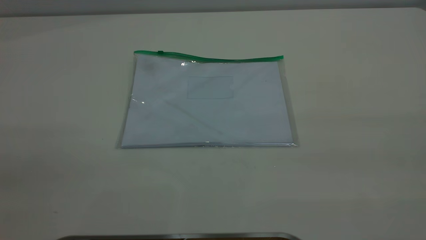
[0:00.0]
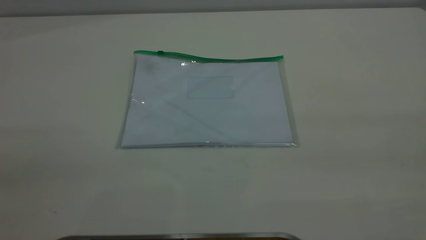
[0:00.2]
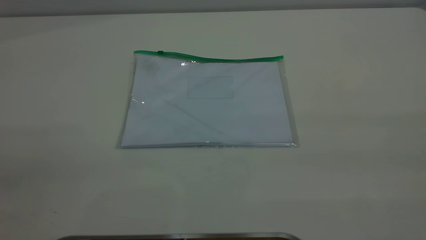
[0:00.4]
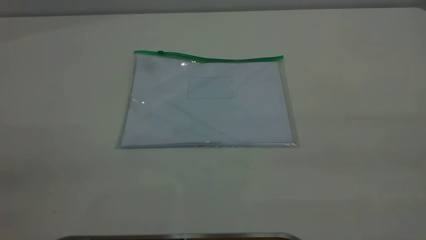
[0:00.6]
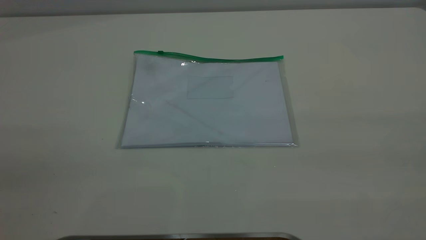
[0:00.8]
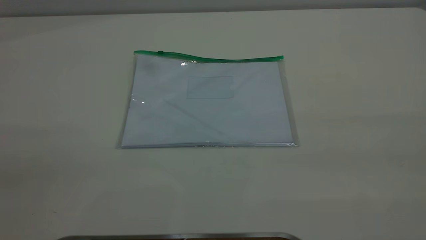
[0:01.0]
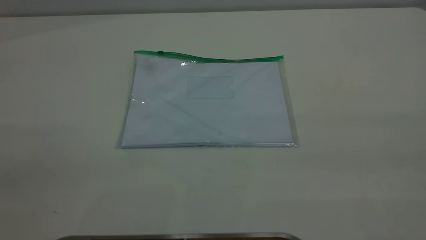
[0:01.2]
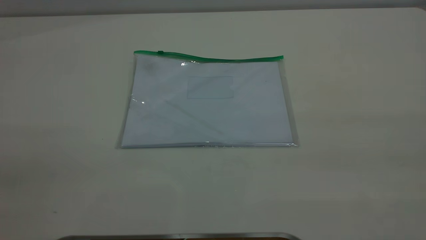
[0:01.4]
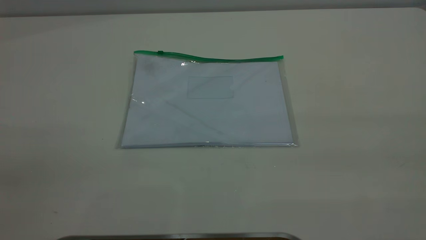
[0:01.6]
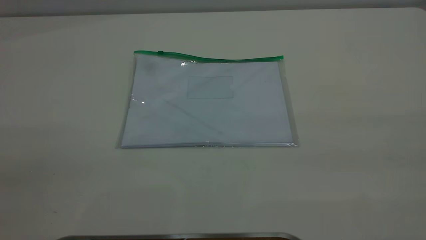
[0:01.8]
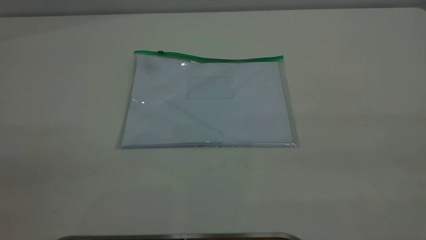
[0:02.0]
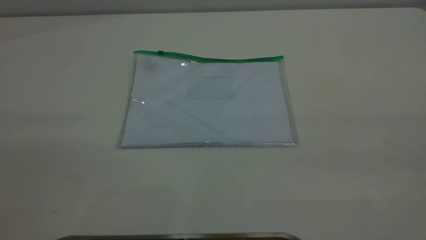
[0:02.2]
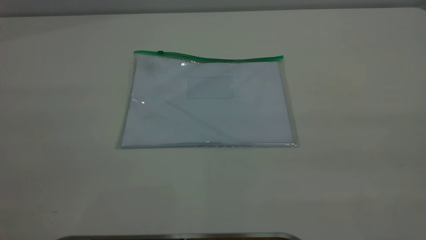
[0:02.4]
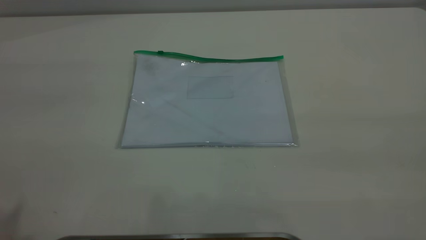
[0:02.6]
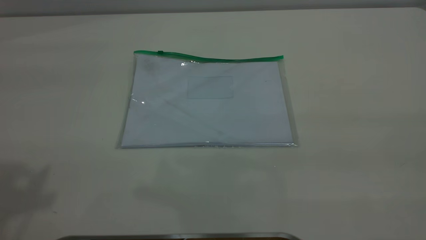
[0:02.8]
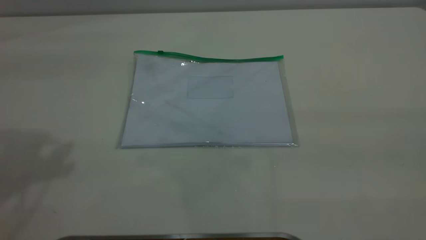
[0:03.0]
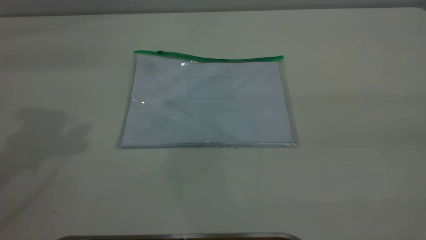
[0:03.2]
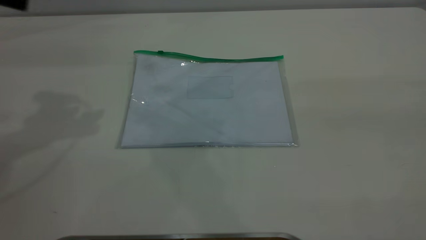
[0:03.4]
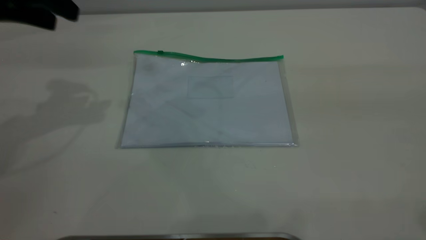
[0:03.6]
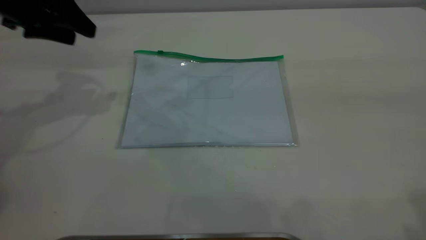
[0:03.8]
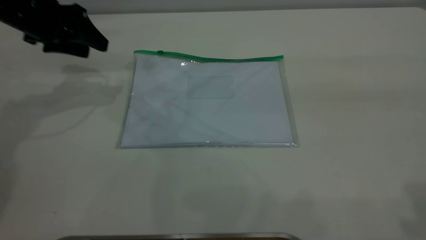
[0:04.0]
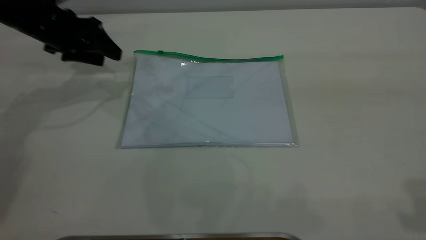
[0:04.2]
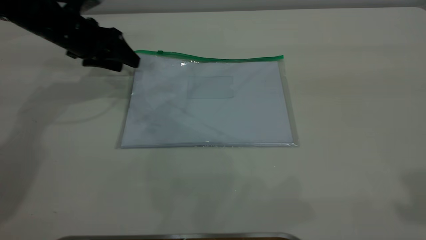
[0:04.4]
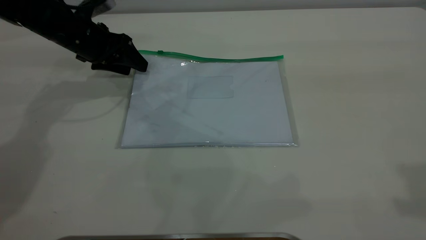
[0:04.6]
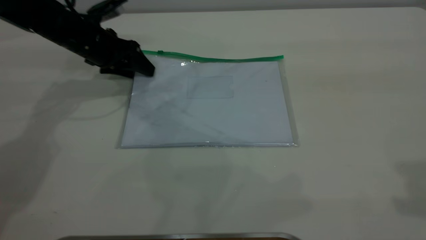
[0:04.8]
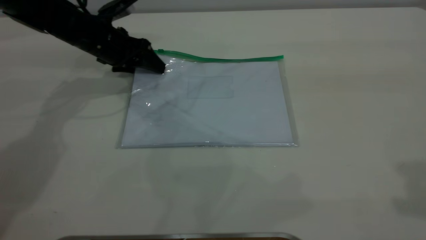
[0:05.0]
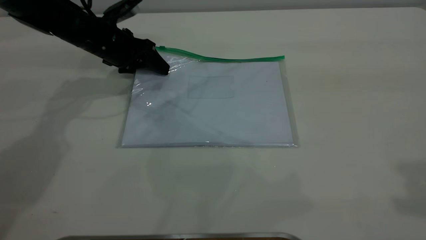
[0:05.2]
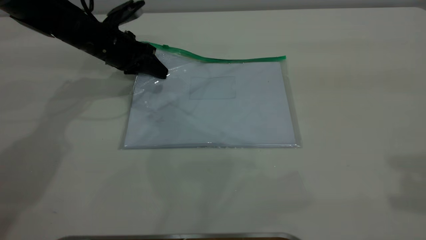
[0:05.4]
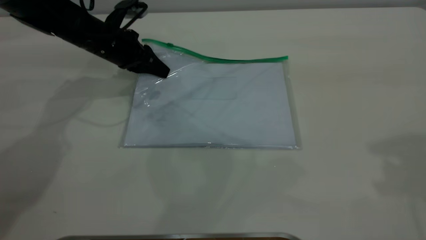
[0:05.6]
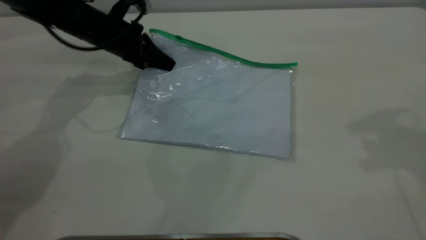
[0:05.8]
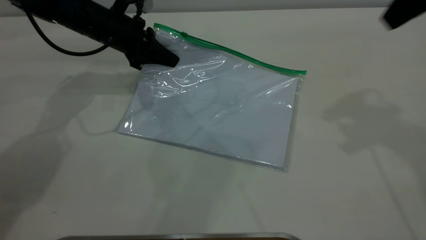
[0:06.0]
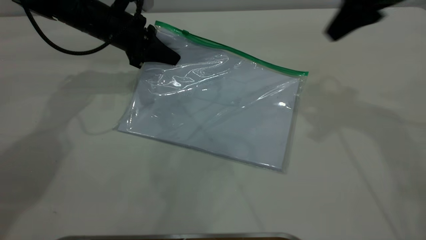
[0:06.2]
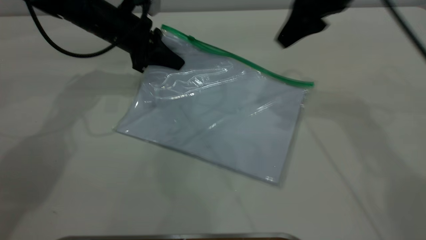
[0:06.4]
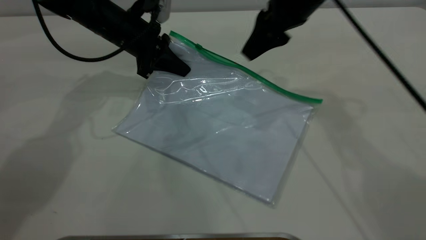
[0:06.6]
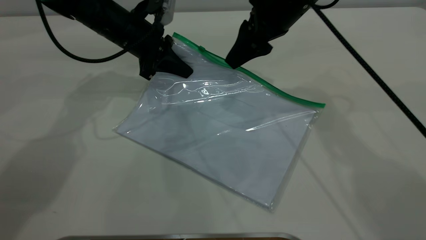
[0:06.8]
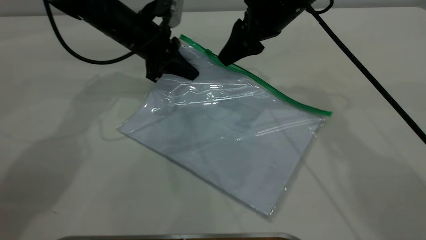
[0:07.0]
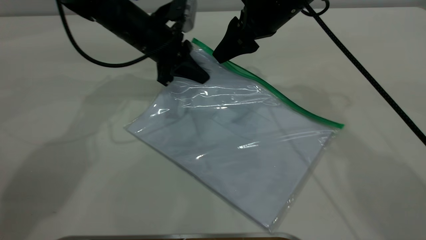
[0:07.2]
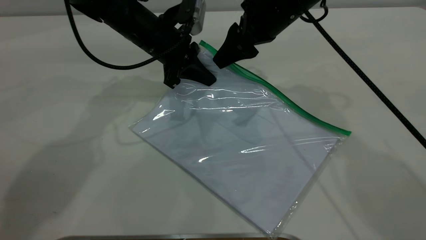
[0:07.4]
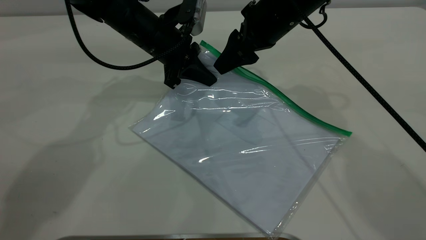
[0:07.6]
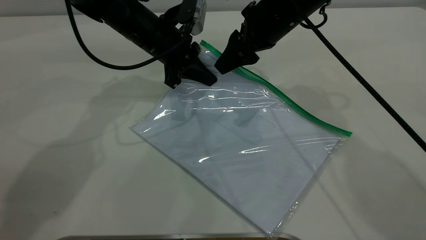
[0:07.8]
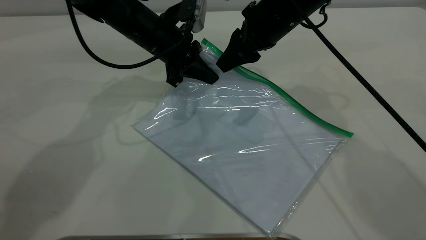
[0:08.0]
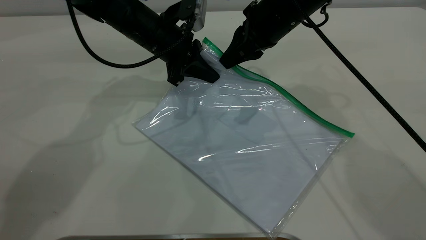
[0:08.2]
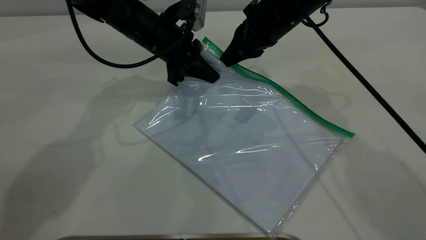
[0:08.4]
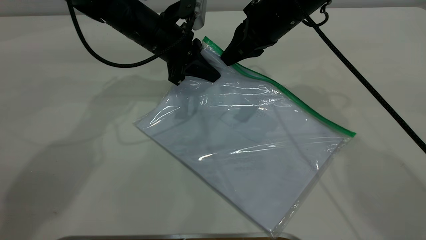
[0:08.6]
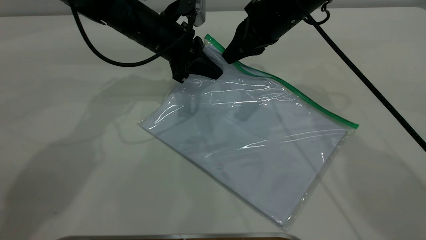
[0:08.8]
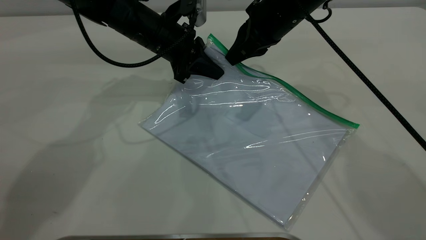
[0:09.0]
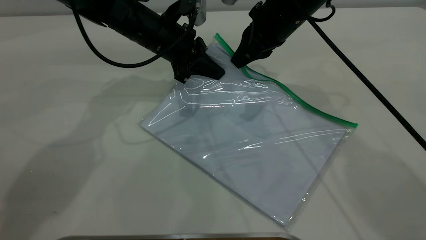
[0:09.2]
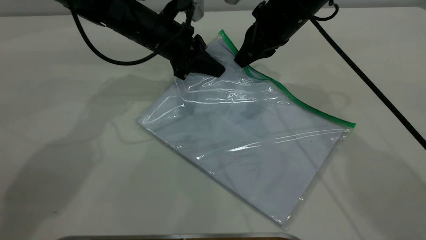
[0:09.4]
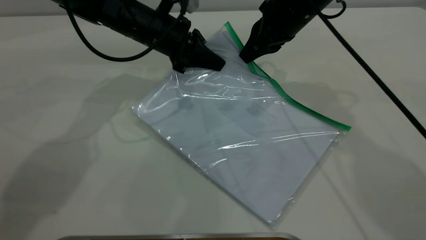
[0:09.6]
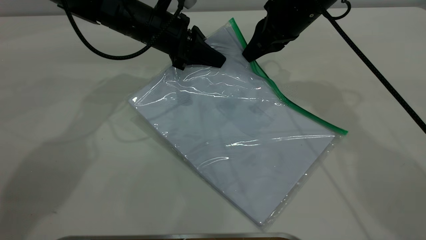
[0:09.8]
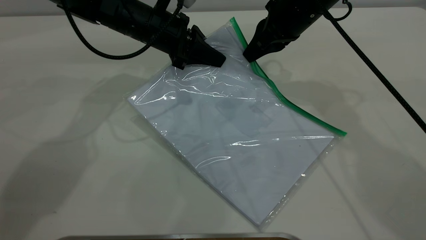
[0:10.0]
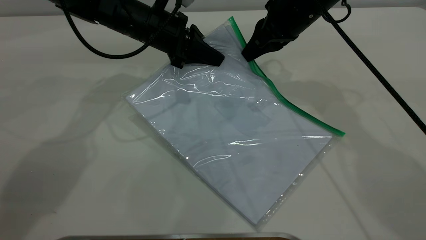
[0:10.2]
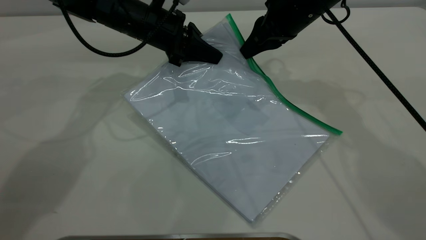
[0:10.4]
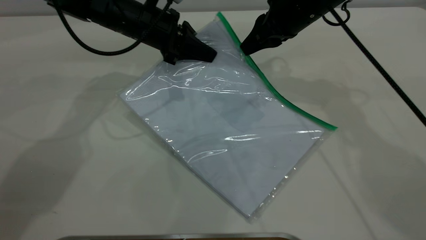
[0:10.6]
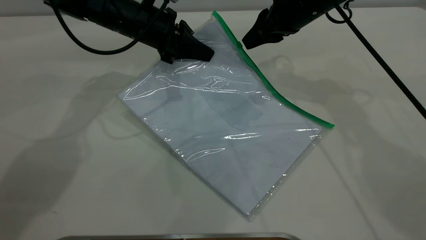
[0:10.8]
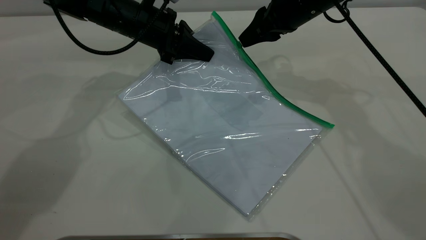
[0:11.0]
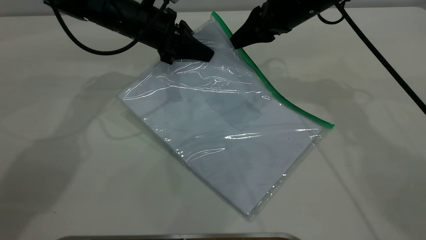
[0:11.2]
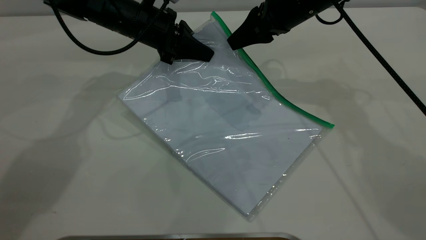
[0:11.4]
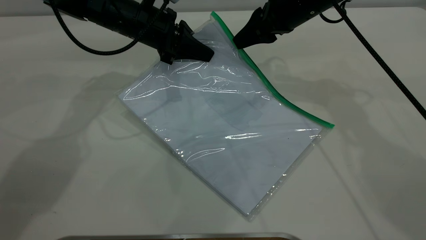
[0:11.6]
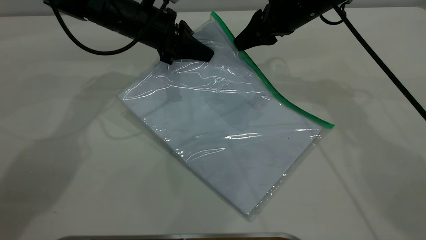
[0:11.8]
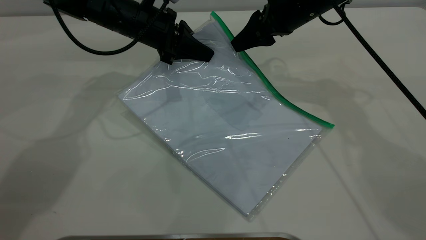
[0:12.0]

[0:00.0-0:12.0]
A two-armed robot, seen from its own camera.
Step, 0:00.0 to 0:05.8: Pick up the transparent plastic bag with the left gripper.
0:00.0 to 0:01.6: Both grippers stay about where they are.
0:03.0 to 0:04.4: The left gripper travels downward and forward by about 35 cm.
0:04.4 to 0:06.0: The left gripper goes approximately 5 cm to the right, and closes, while the right gripper heads forward and downward, covering roughly 20 cm.
0:06.0 to 0:07.6: The right gripper heads to the left, downward and forward, covering roughly 20 cm; the left gripper travels to the right by approximately 10 cm.
0:07.6 to 0:09.0: The right gripper closes its fingers.
0:09.0 to 0:10.4: The grippers make only small movements.
0:10.4 to 0:12.0: The right gripper opens its fingers.

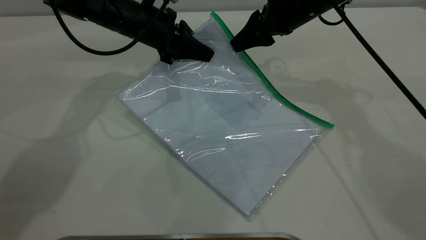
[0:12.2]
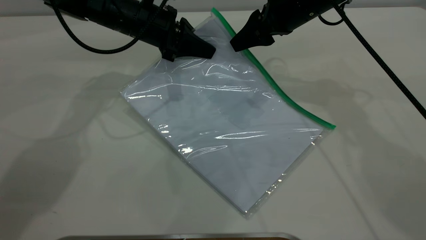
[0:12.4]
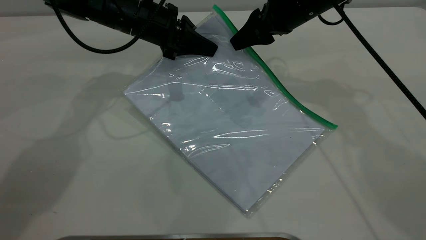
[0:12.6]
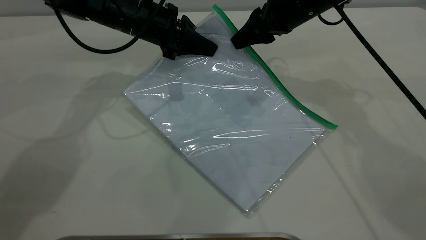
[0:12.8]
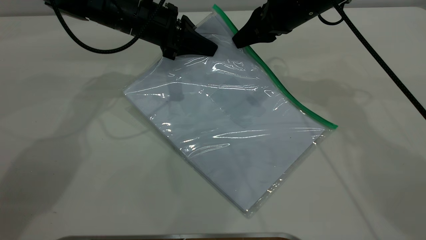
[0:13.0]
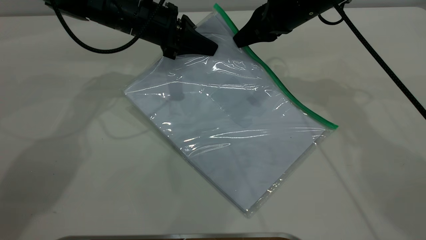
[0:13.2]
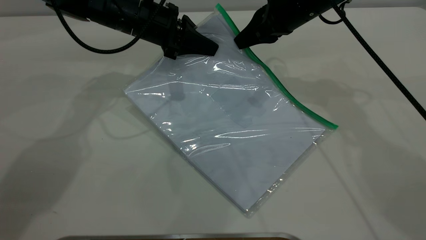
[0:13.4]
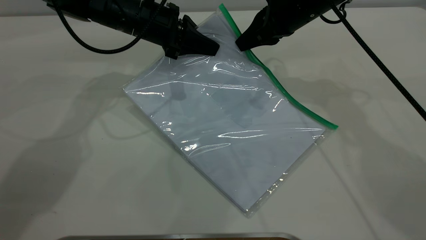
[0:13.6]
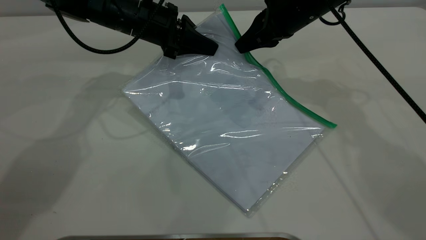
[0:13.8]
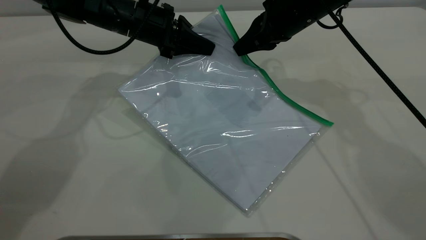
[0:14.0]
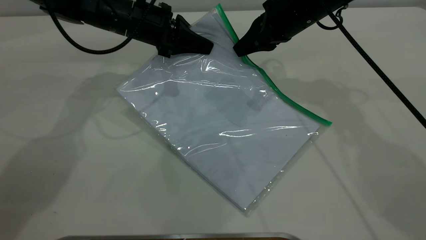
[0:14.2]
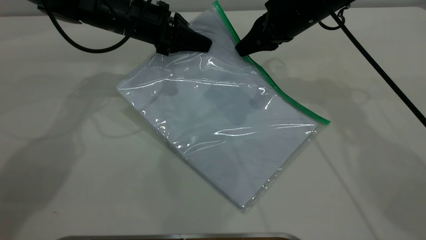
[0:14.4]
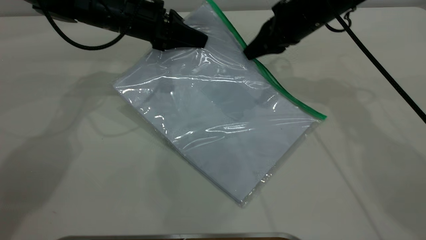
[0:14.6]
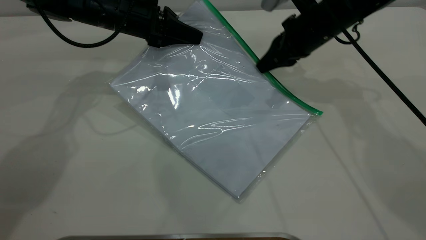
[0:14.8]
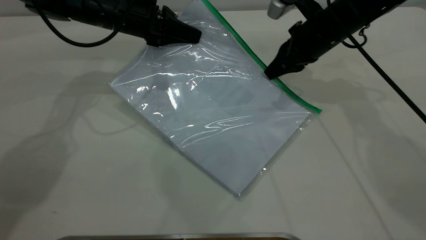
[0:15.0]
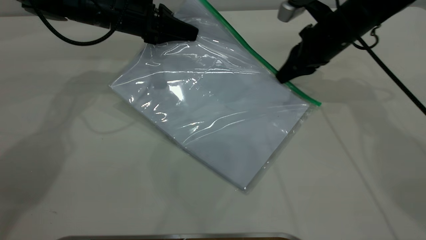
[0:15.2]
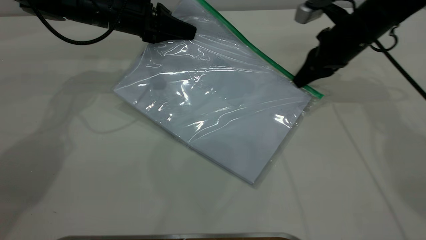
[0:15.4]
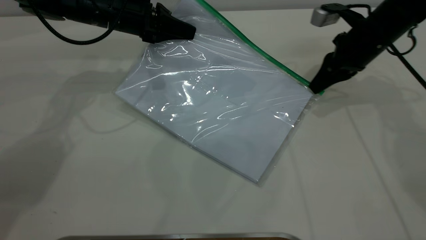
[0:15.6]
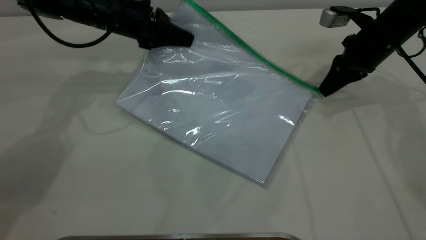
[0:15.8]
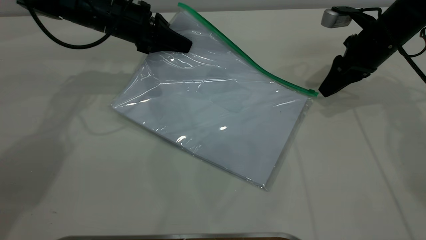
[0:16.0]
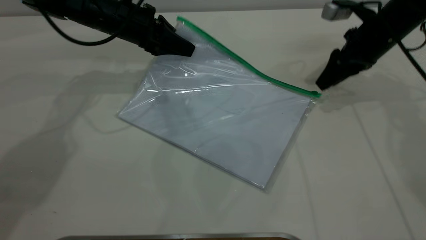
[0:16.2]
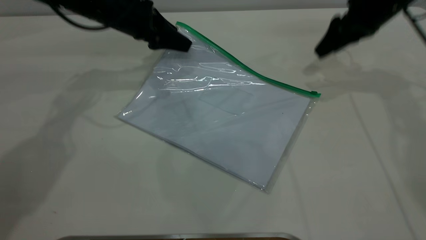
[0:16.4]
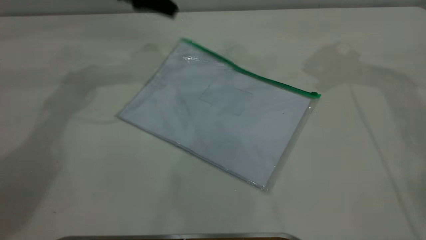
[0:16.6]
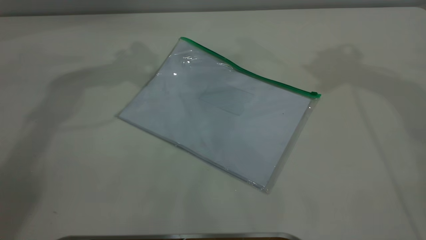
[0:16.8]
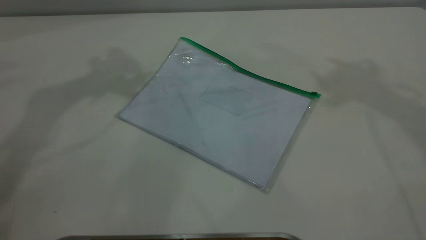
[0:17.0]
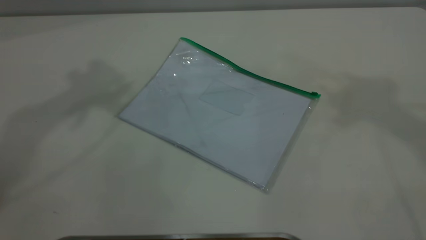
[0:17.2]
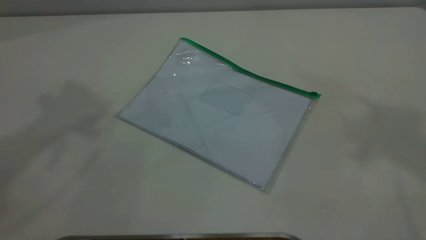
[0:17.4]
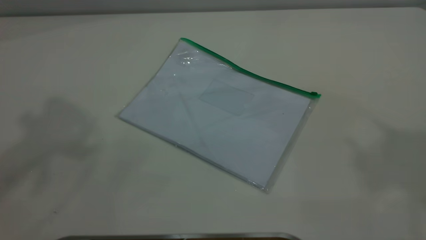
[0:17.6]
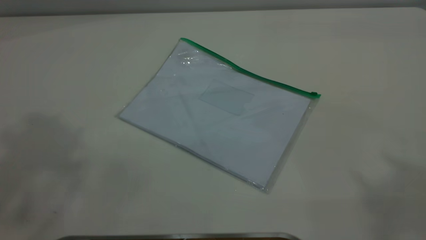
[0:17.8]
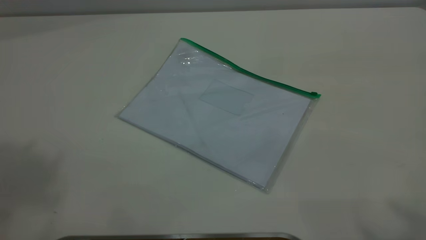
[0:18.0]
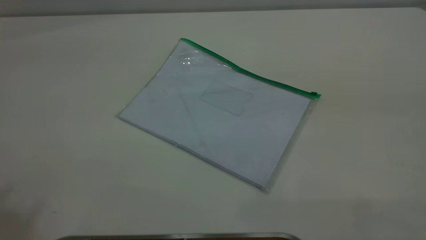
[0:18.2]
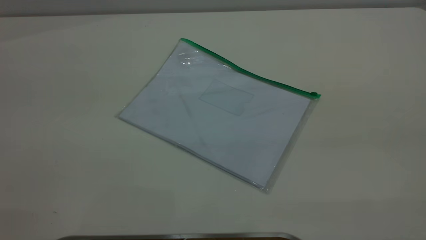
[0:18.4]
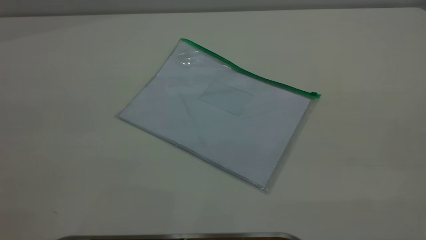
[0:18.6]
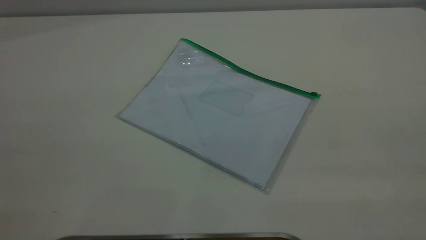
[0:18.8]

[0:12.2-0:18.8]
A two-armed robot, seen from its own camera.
Step, 0:12.2 to 0:16.2: Pulling up the zipper on the transparent plastic bag with the right gripper to close it.
0:12.2 to 0:13.8: The right gripper closes.
0:13.8 to 0:15.4: The right gripper shifts about 10 cm to the right.
0:15.4 to 0:17.2: Both grippers travel together upward, approximately 40 cm. The left gripper opens up; the right gripper opens.
